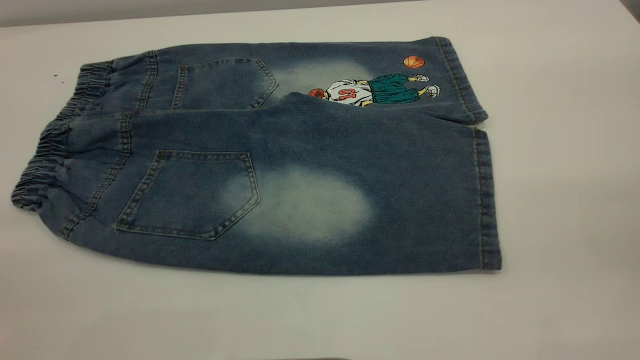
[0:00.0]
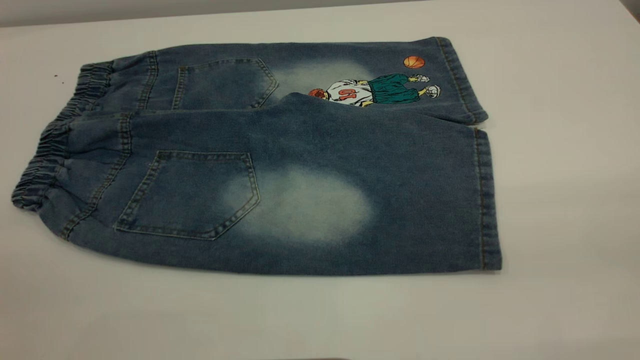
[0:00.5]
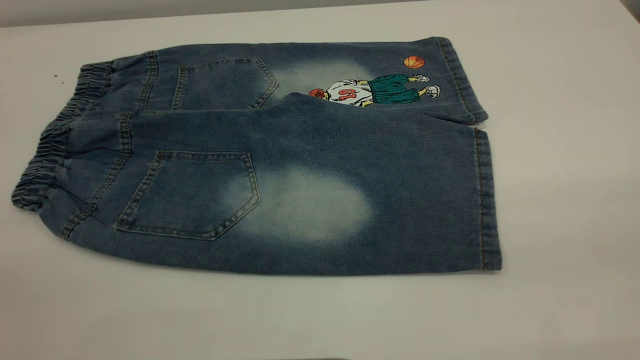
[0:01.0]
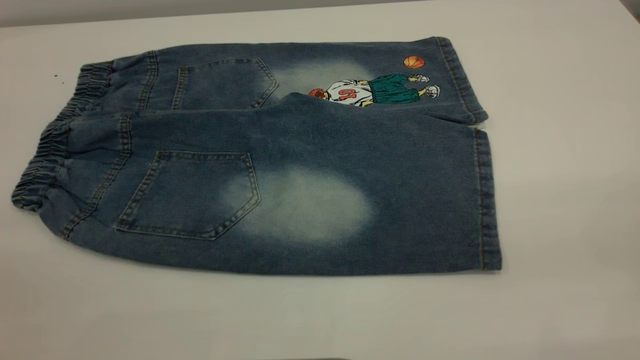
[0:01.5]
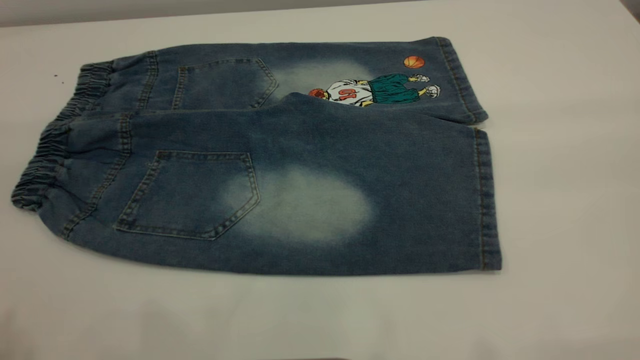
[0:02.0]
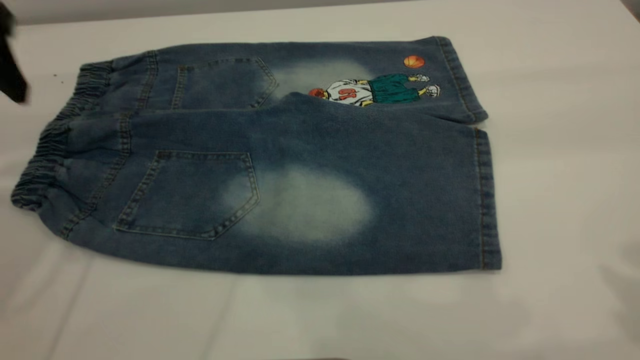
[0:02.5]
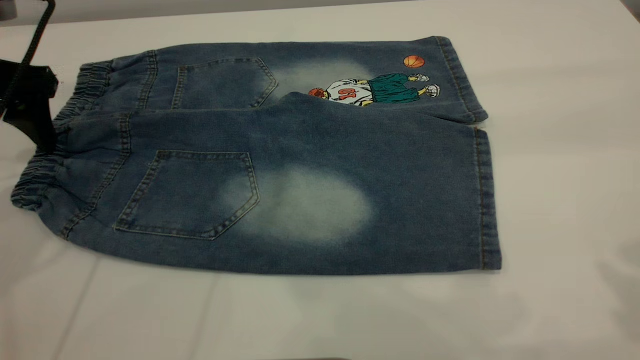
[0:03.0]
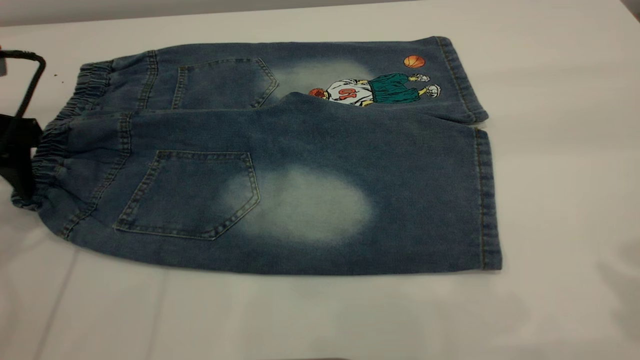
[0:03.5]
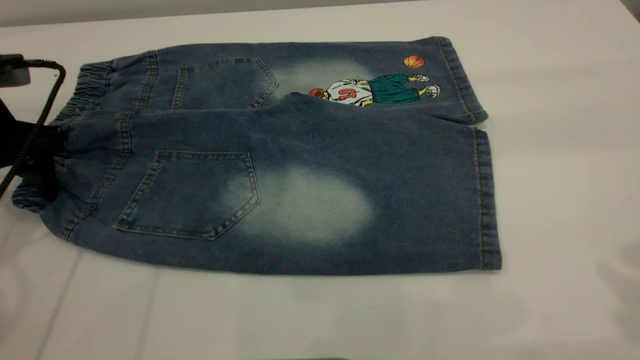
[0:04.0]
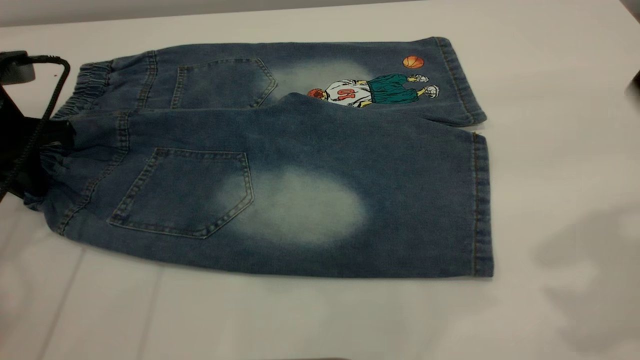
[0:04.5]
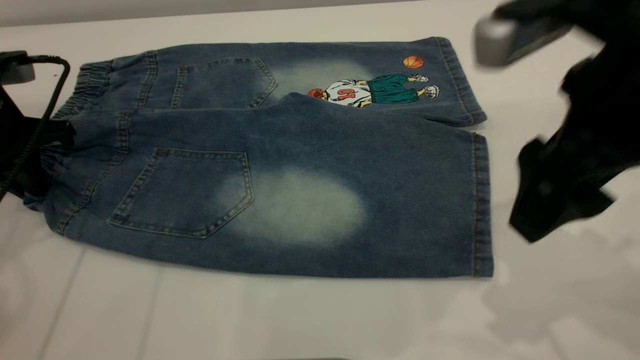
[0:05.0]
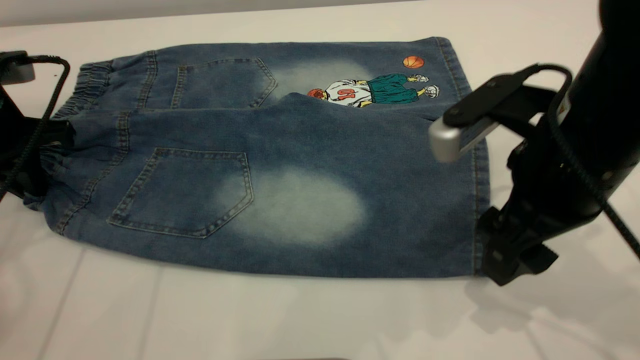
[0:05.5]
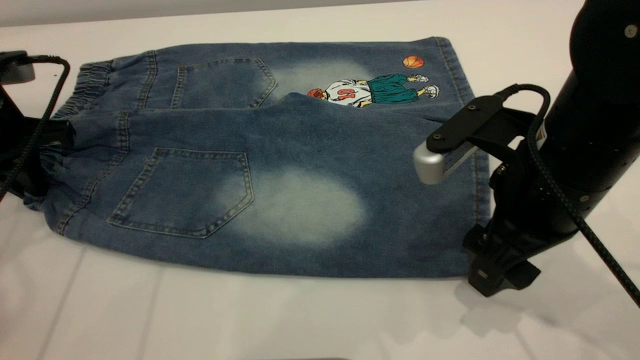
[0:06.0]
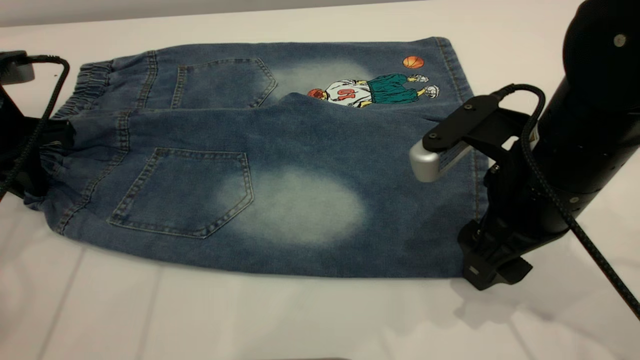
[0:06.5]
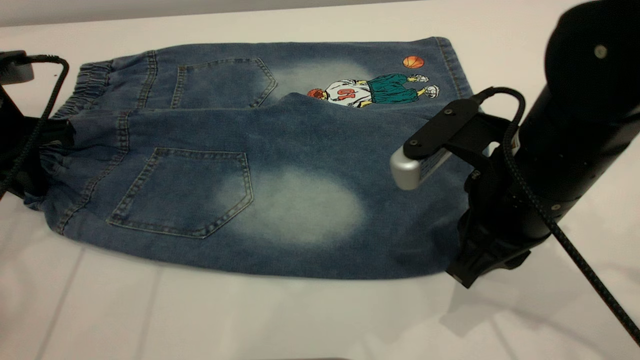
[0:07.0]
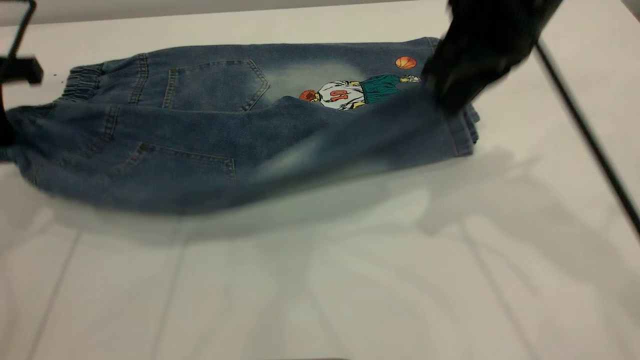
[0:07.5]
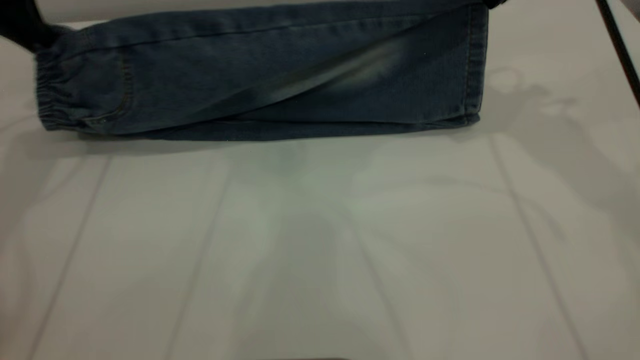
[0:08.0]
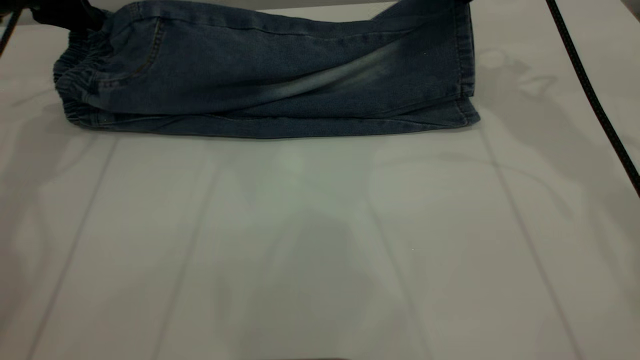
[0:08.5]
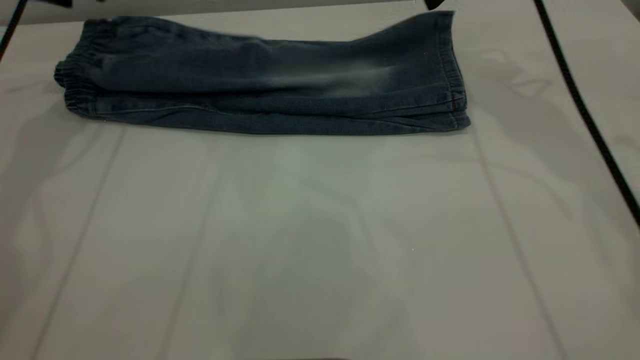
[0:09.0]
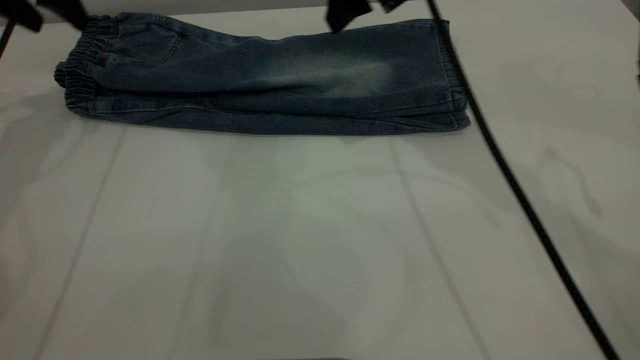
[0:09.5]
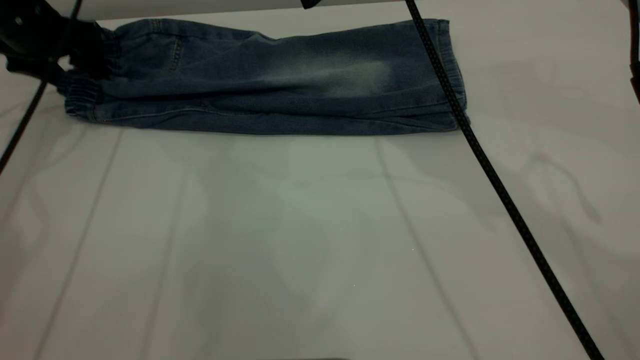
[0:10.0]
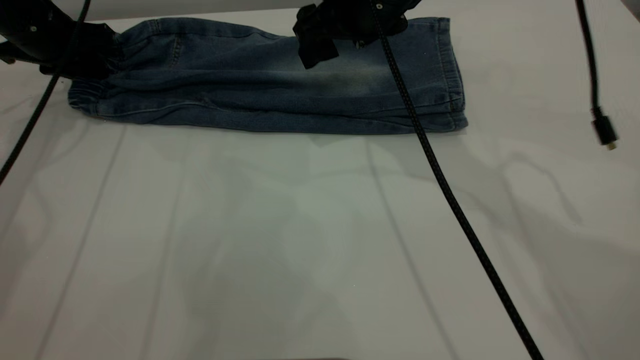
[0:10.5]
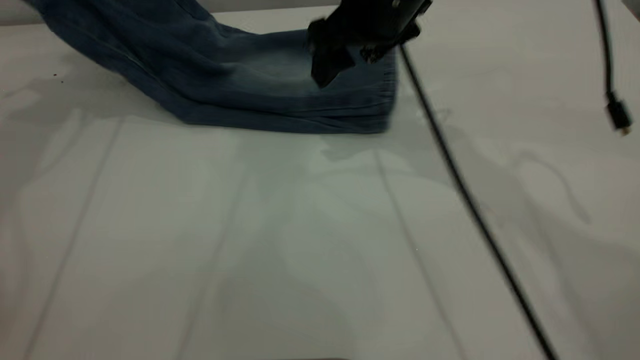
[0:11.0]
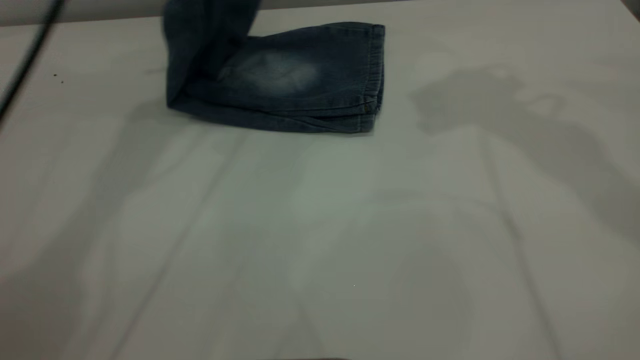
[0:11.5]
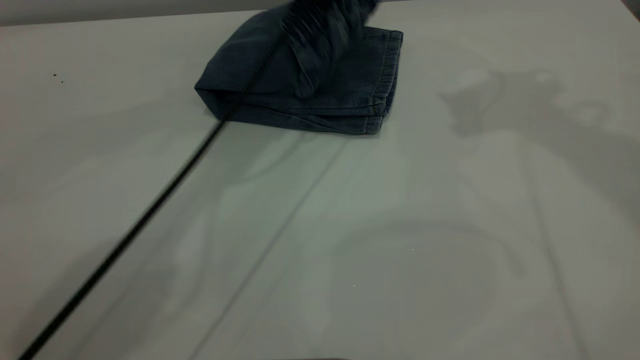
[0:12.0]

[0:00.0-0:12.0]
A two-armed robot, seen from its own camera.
Step, 0:00.0 to 0:09.0: Fold the bottom of the pants upward.
0:02.0 to 0:04.0: The left gripper moves downward and forward, approximately 30 cm.
0:04.0 to 0:06.0: The right gripper travels downward and to the left by about 25 cm, while the left gripper closes.
0:06.0 to 0:08.0: The right gripper moves forward and upward, approximately 20 cm, and closes up. Meanwhile the left gripper moves upward and forward, approximately 15 cm.
0:08.0 to 0:10.0: The right gripper travels to the left by some 10 cm, and opens, while the left gripper shifts roughly 10 cm downward and forward, and opens up.
0:10.0 to 0:12.0: The right gripper heads upward and to the right, covering about 20 cm, while the left gripper moves to the right, about 30 cm, and closes.

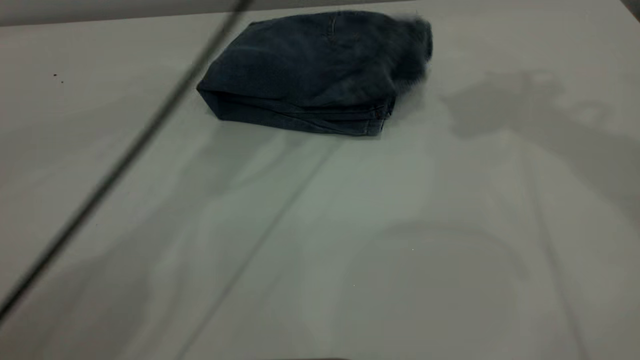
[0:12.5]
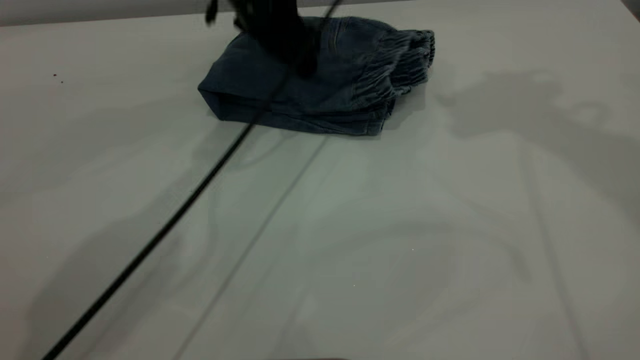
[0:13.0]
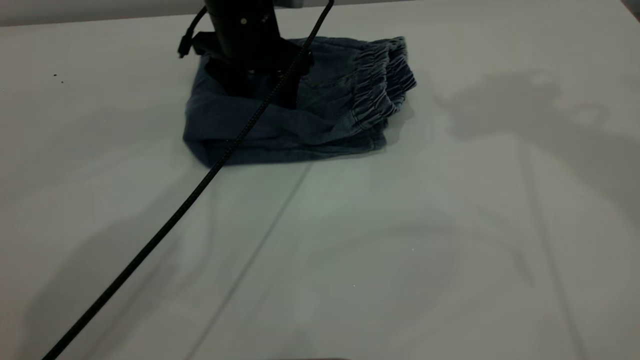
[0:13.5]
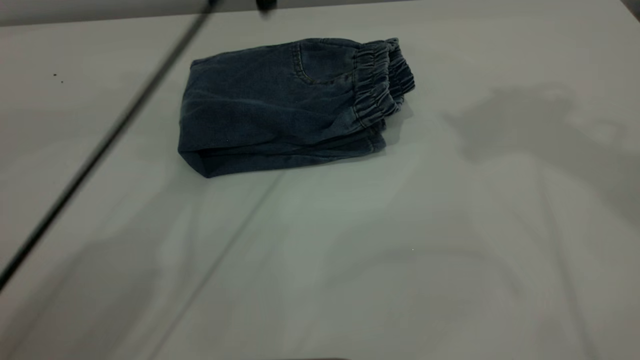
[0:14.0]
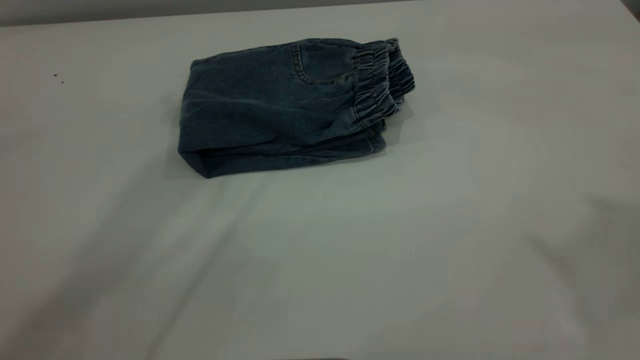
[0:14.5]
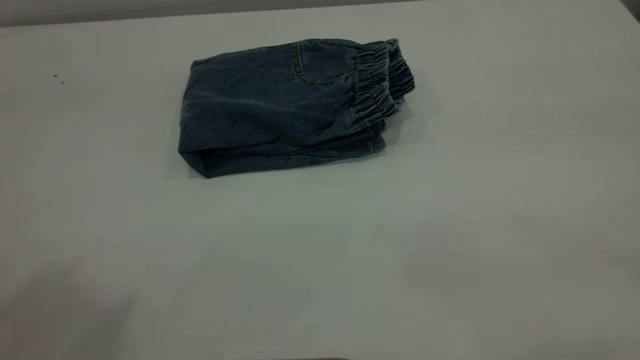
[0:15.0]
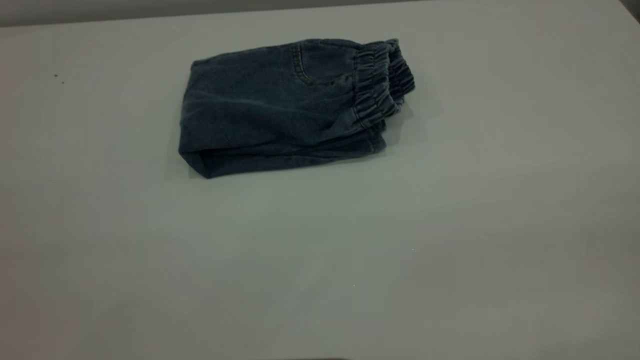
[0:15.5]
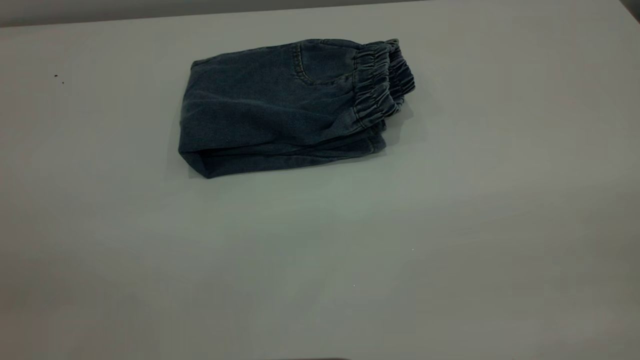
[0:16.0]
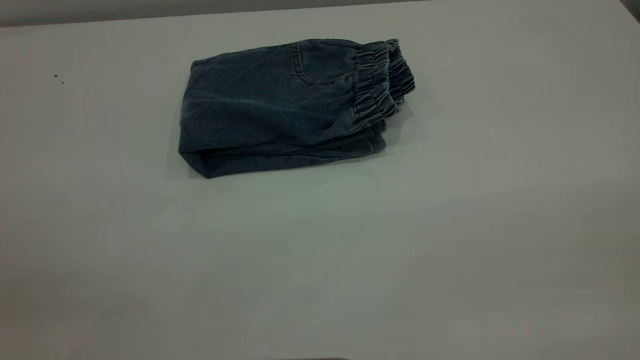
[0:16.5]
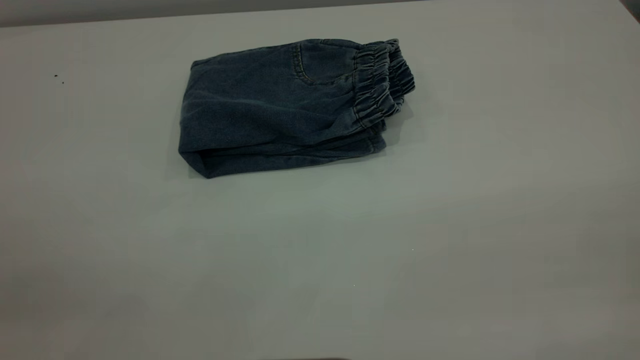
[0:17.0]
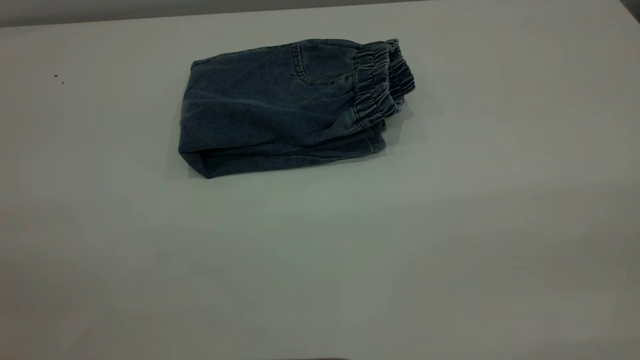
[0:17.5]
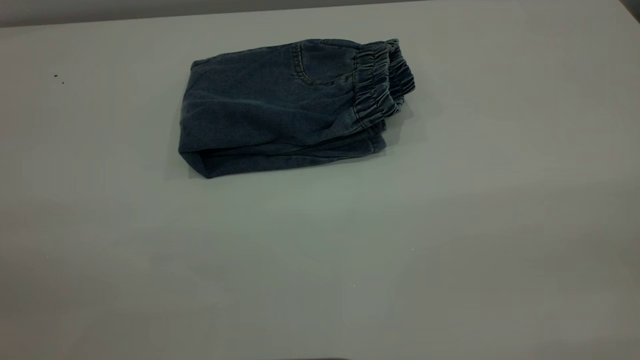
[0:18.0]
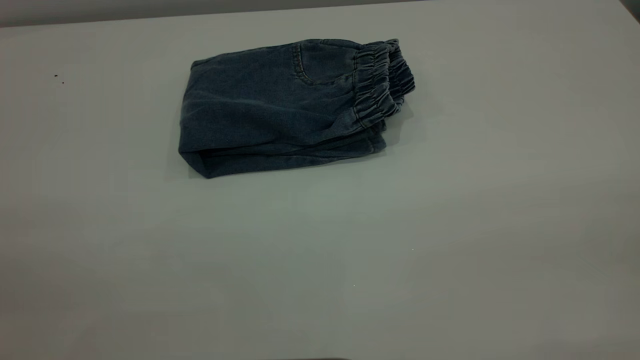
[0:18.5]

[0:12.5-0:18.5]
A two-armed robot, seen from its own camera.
0:12.5 to 0:14.5: The right gripper moves backward and upward, about 25 cm. The left gripper travels upward and backward by approximately 25 cm.

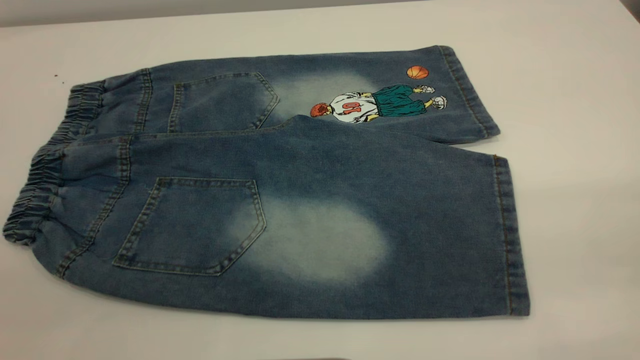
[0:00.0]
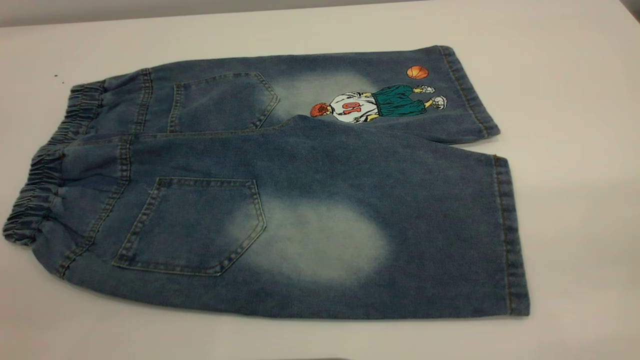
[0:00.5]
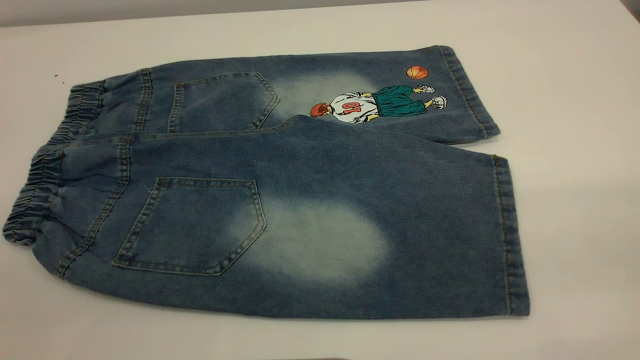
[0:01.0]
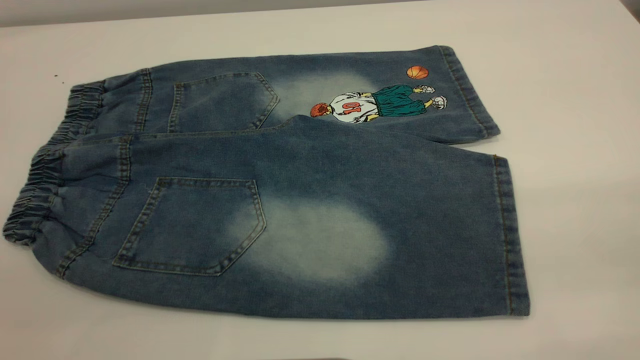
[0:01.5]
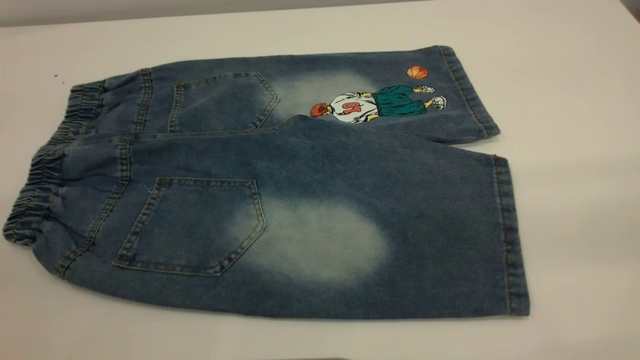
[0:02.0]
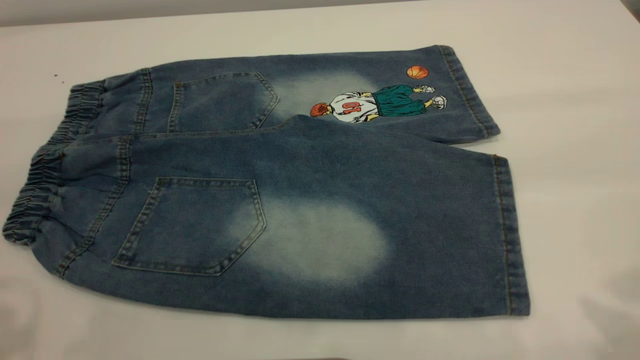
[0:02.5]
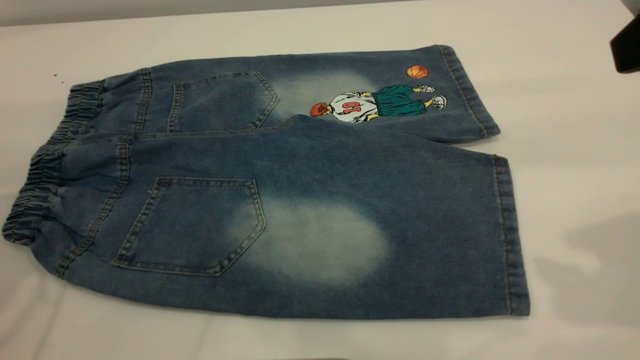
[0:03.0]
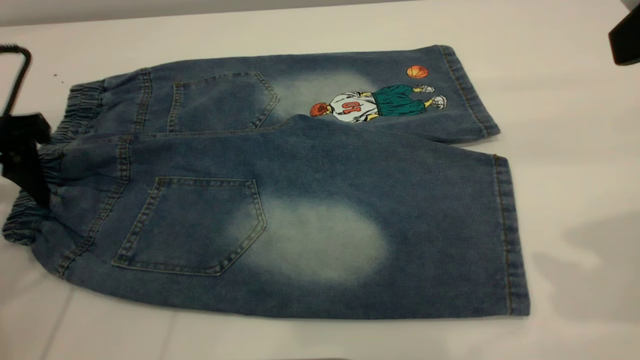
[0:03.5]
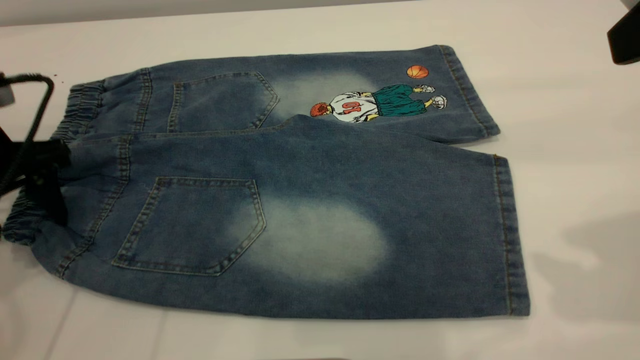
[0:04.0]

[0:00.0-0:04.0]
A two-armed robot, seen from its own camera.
0:02.0 to 0:04.0: The right gripper travels forward by about 15 cm, while the left gripper heads forward and downward, covering some 35 cm.
